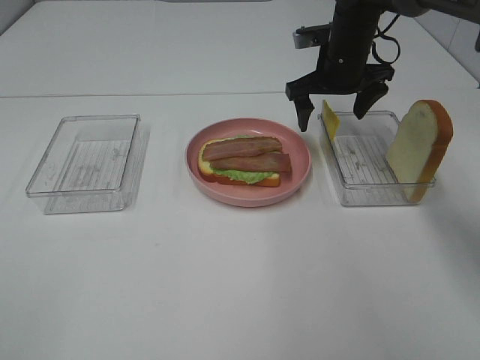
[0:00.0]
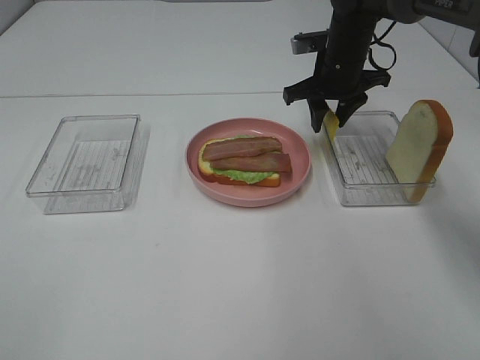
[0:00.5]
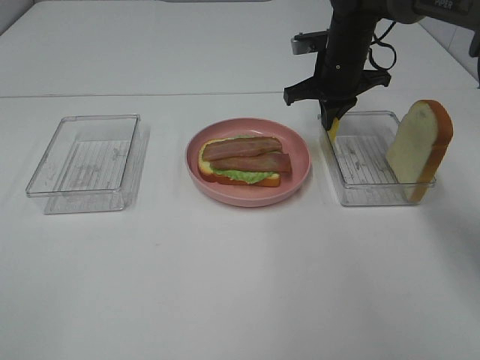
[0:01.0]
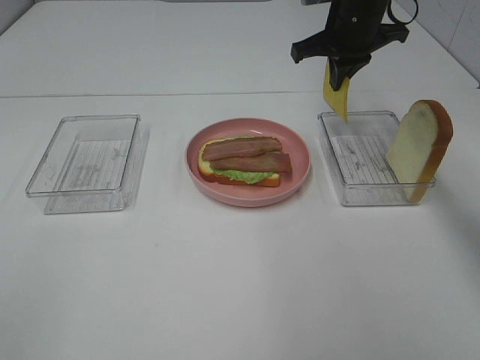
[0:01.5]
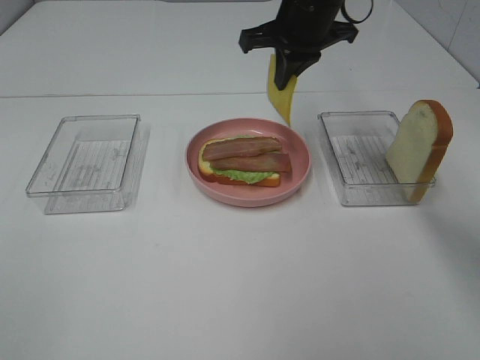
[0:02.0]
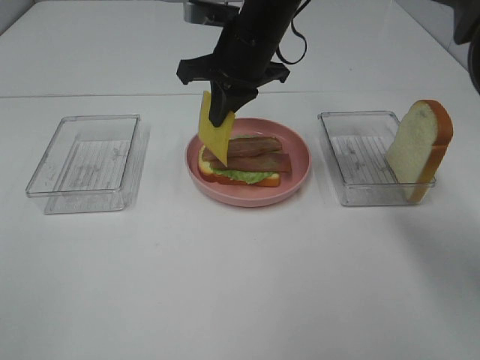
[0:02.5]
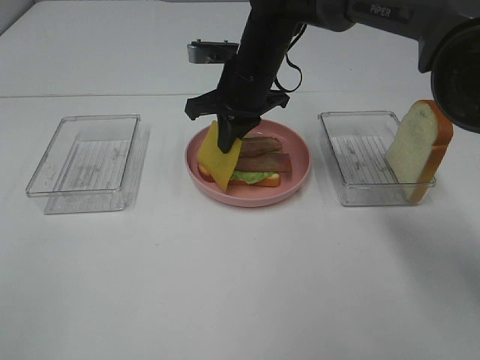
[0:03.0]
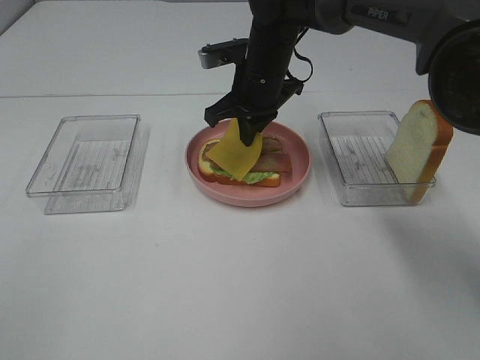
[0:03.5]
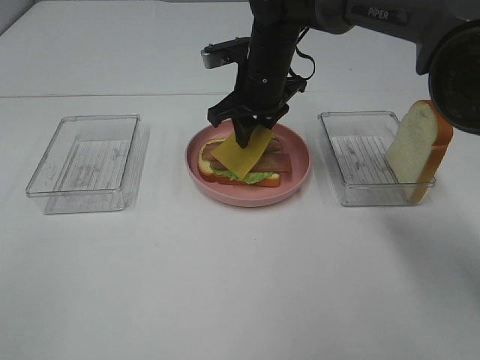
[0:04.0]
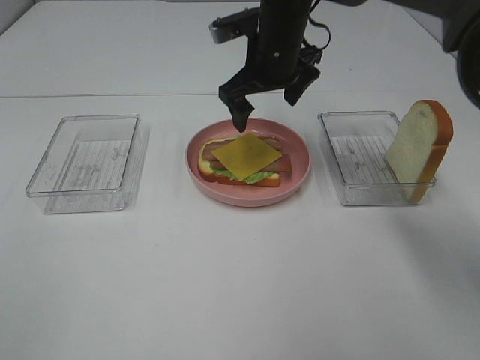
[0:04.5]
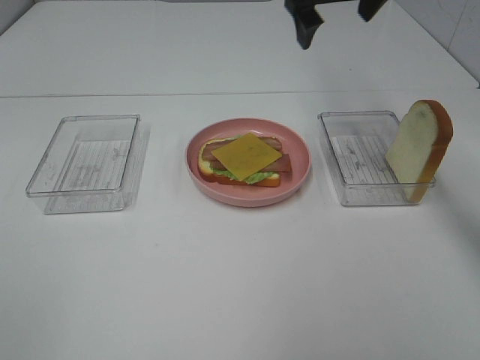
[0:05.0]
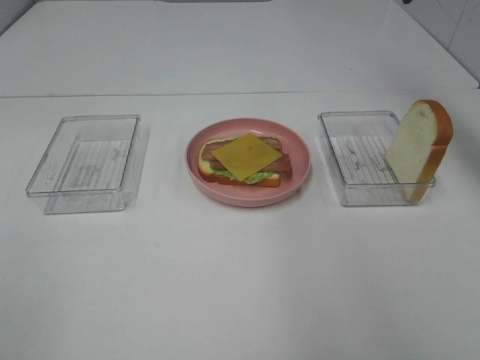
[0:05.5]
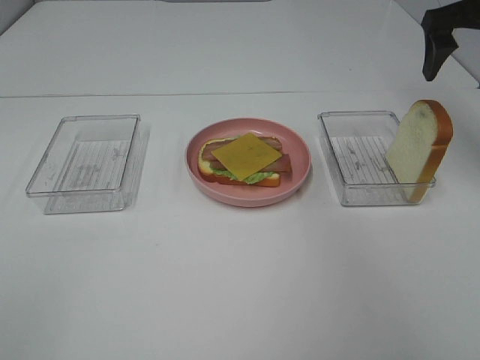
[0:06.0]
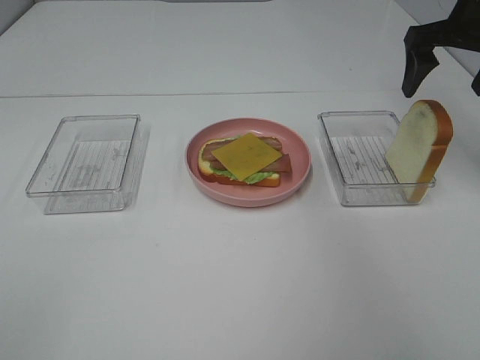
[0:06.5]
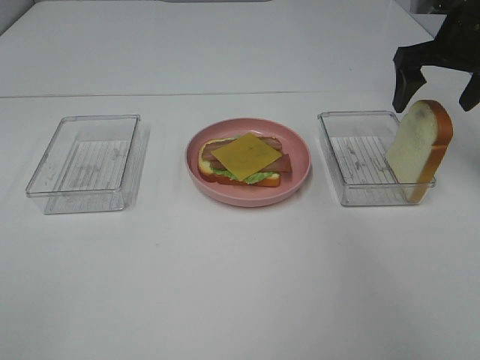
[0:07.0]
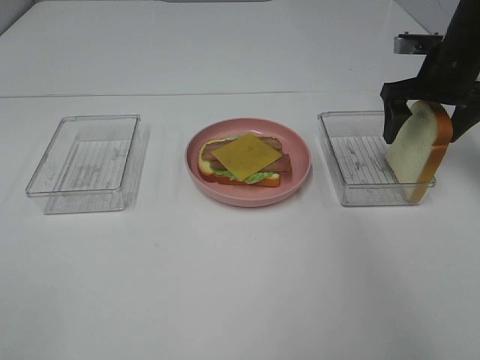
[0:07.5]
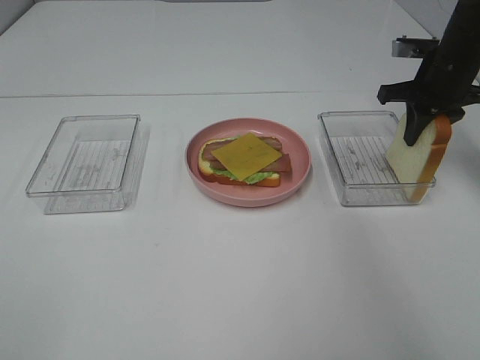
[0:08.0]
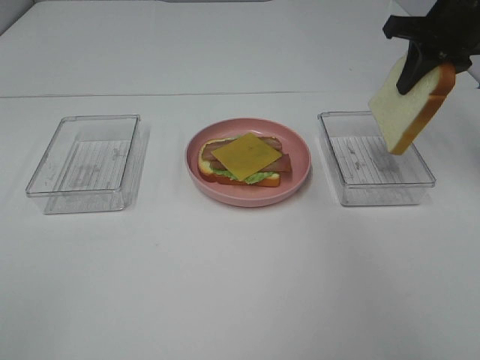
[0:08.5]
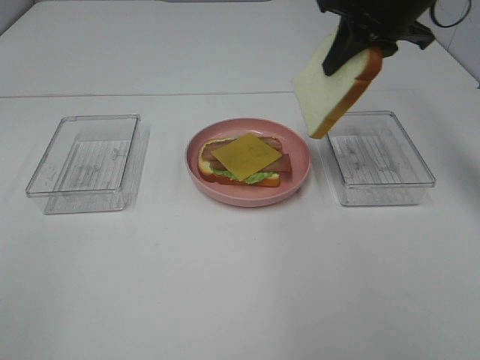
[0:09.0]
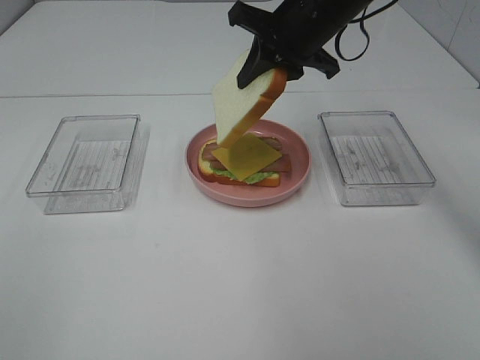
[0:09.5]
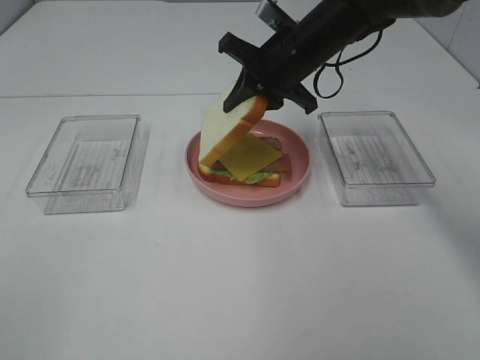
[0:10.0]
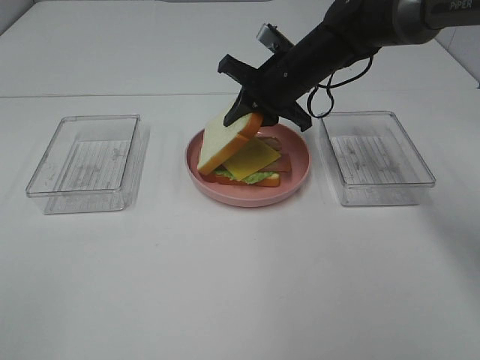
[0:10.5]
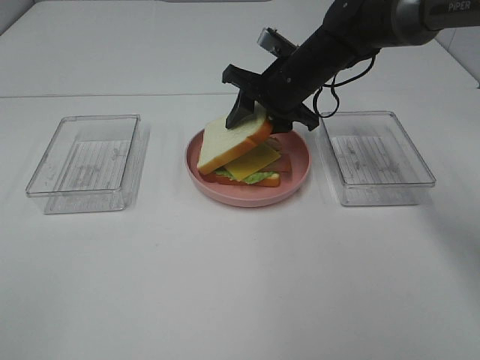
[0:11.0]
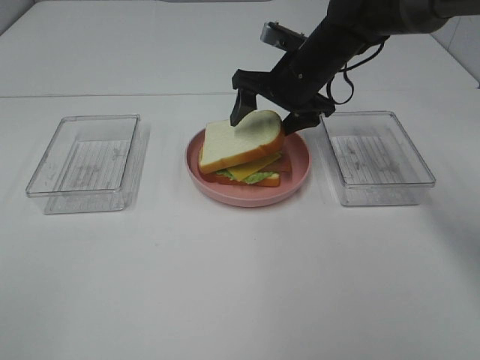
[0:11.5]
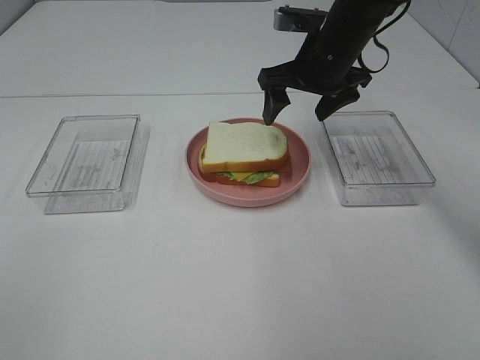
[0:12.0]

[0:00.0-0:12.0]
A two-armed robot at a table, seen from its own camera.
Task of the whole recording: Make sandwiches.
Step, 0:01.0 to 0:04.5: Right hand:place the cheese slice on top of the bacon.
Step, 0:05.0 to 0:07.5: Right hand:grab the bread slice.
Step, 0:08.0 to 0:11.5: Right hand:place the bread slice on the cheese slice.
0:00.0 to 0:02.0: The right gripper moves upward and to the left, roughly 10 cm, and closes.
0:02.0 to 0:04.0: The right gripper goes roughly 10 cm downward, and opens its fingers.
0:04.0 to 0:06.0: The right gripper is displaced to the right and upward by some 30 cm, and opens up.
0:06.0 to 0:08.0: The right gripper is displaced downward by approximately 10 cm, and closes up.
0:08.0 to 0:10.0: The right gripper is displaced to the left by about 20 cm.
0:10.0 to 0:12.0: The right gripper opens.

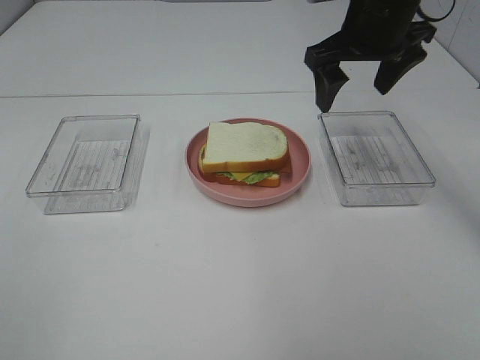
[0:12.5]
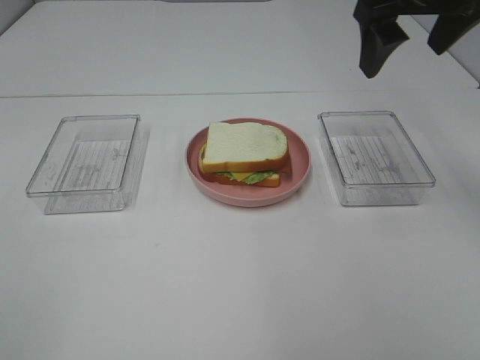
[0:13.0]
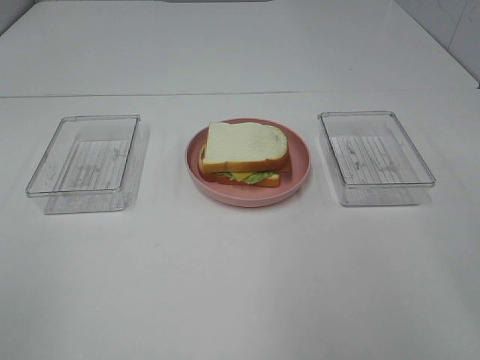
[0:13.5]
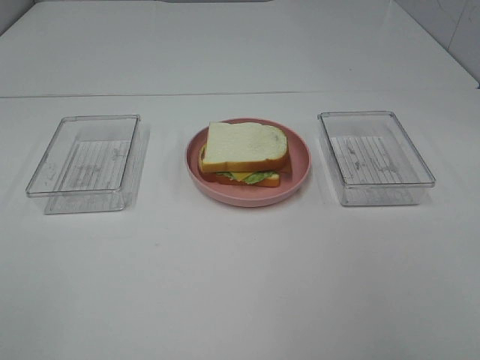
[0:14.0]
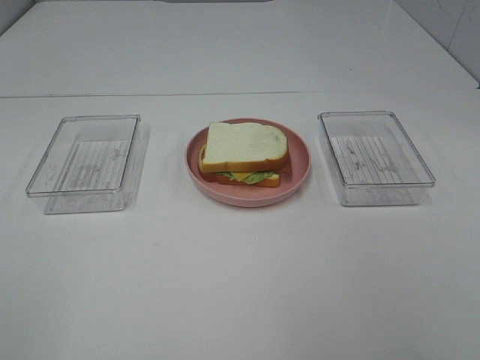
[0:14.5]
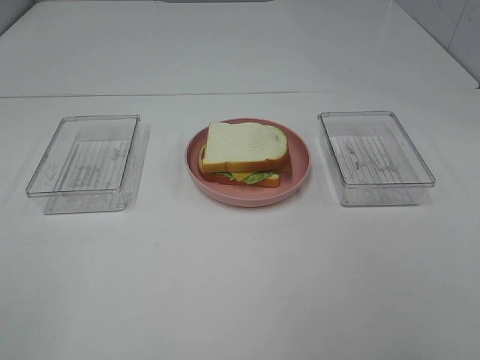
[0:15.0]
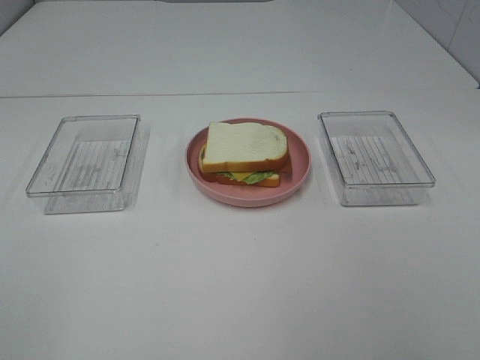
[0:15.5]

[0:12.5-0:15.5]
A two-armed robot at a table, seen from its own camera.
Task of the whole recording: Make sandwiches.
0:12.5 to 0:14.0: The right gripper goes roughly 35 cm backward and to the right.

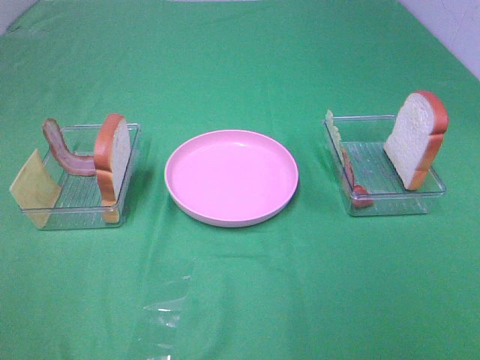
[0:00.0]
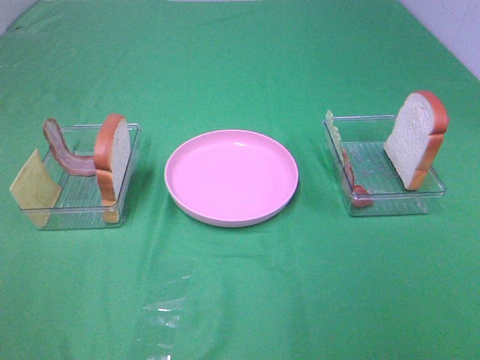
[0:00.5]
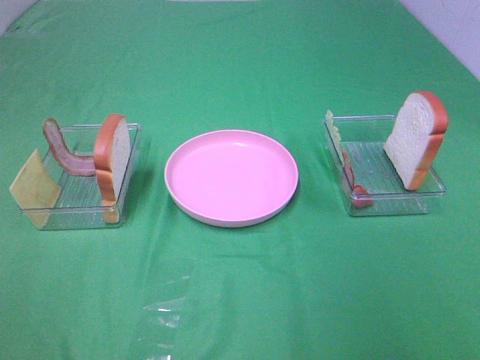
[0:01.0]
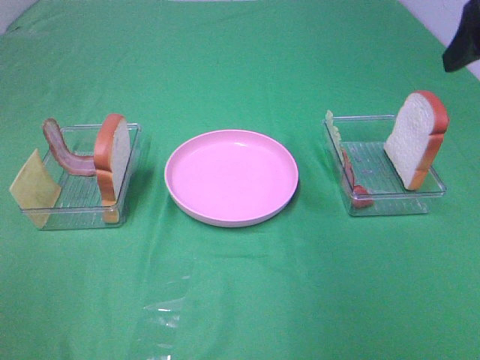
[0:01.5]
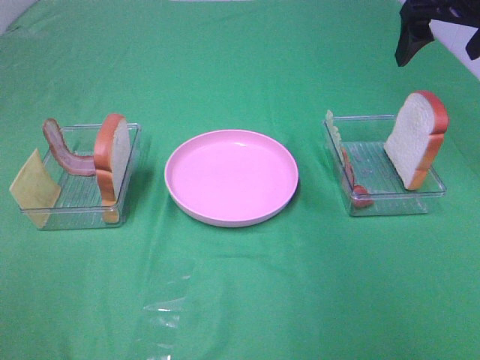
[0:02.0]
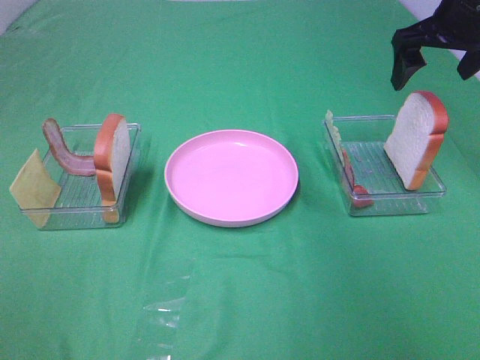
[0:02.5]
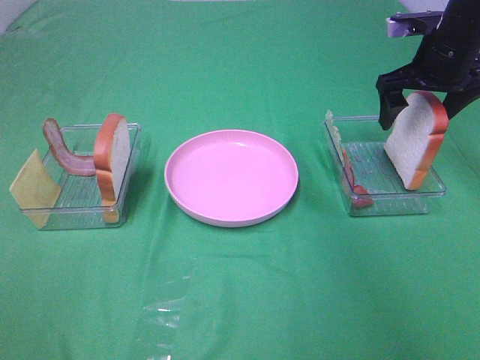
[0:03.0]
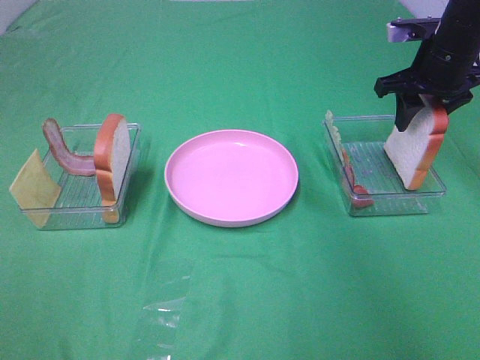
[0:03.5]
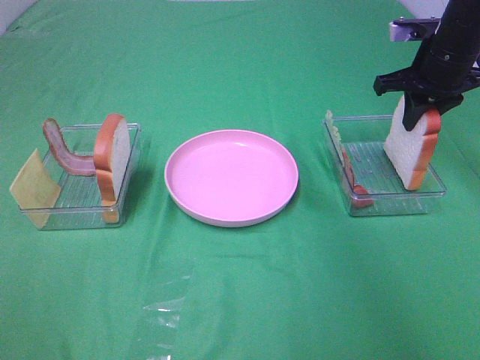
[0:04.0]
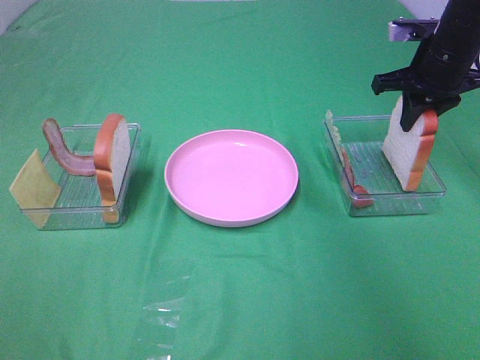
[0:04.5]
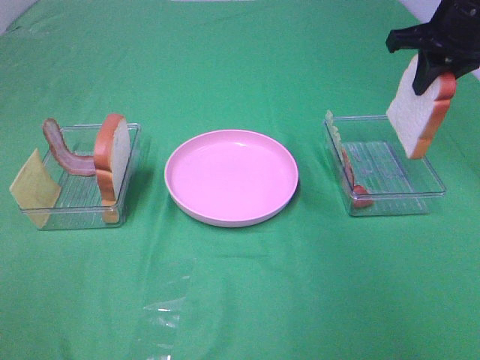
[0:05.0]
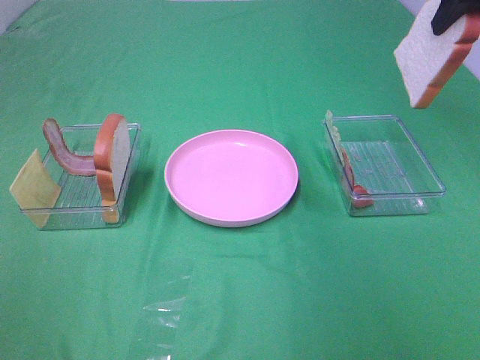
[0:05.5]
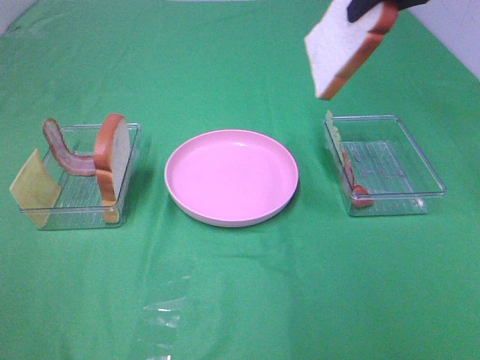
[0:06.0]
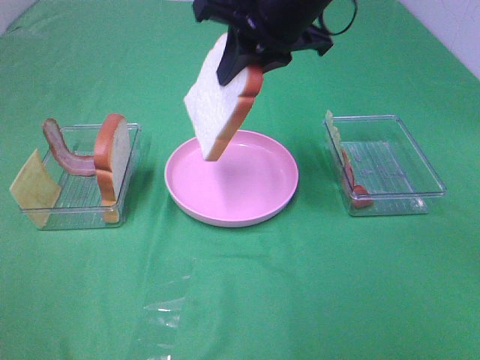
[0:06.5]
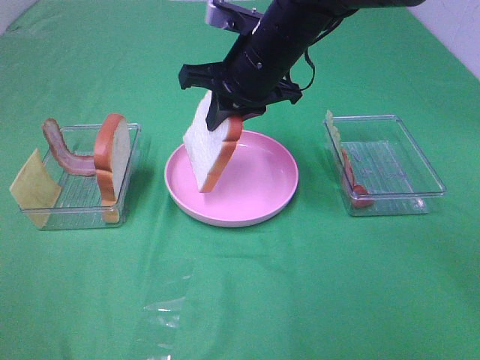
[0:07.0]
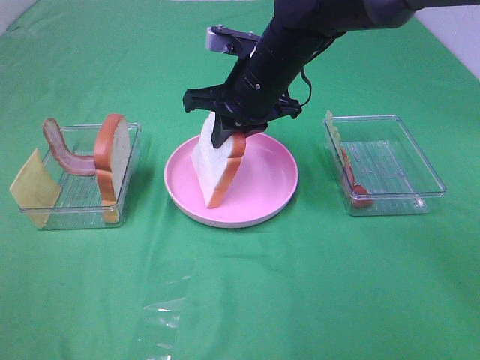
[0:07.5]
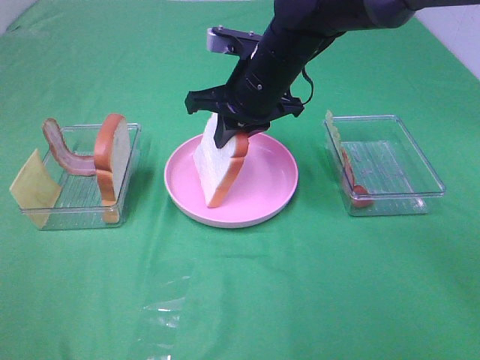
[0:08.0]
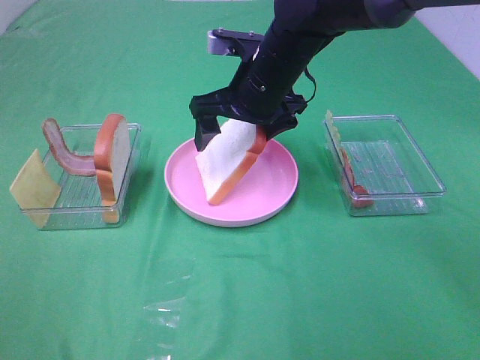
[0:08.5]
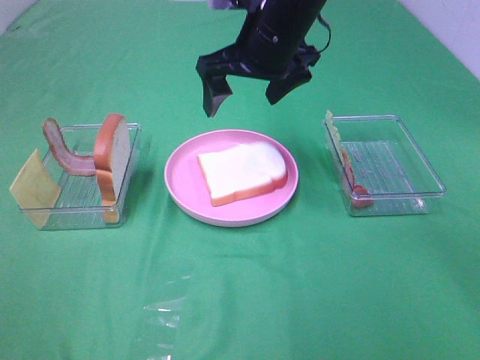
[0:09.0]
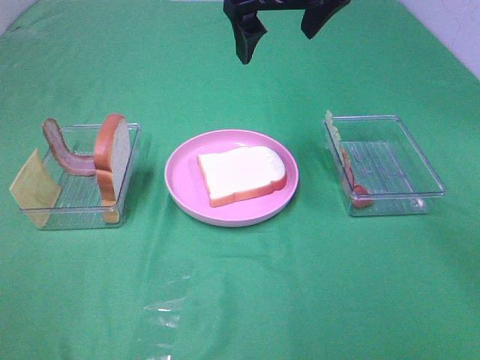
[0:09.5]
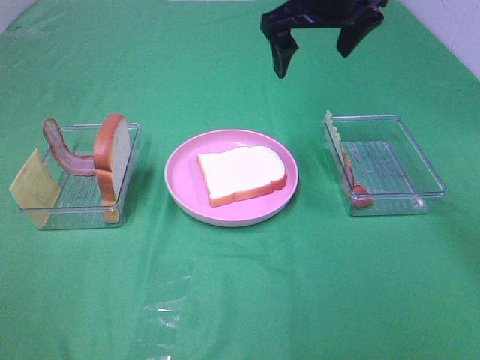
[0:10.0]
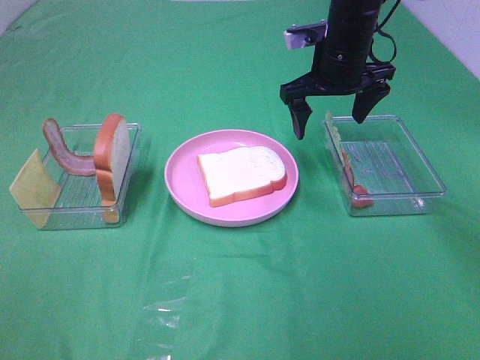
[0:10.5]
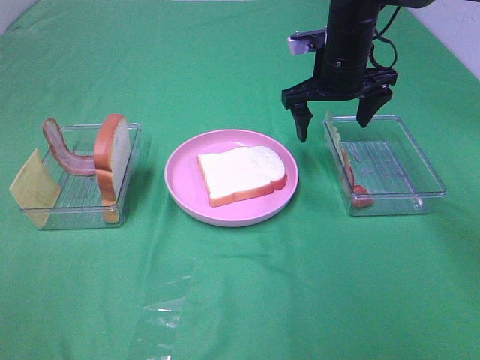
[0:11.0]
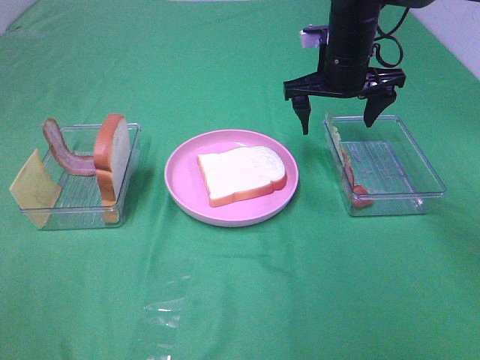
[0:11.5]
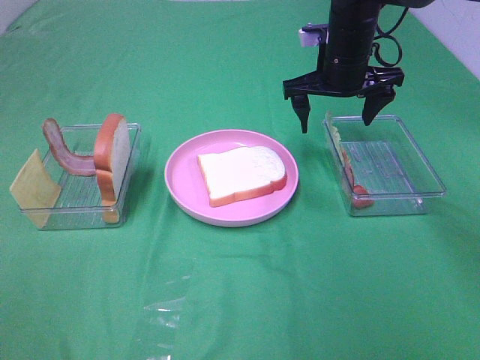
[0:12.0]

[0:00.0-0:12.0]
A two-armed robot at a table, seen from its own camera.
Task of the whole recording: Make sandwiches.
Step, 0:00.0 to 0:04.0: Right hand:grab the bread slice.
Step, 0:04.5 to 0:09.0: Right hand:place the bread slice on the plate.
0:00.0 to 0:02.0: The right gripper moves forward, about 40 cm.
0:02.0 to 0:04.0: The right gripper goes roughly 10 cm downward, and closes its fingers.
0:04.0 to 0:06.0: The right gripper heads upward, to the left and backward, covering approximately 20 cm.
0:06.0 to 0:08.0: The right gripper goes about 20 cm downward and to the left.
0:08.0 to 0:10.0: The right gripper heads upward and to the right, covering some 15 cm, and opens its fingers.
0:10.0 to 0:12.0: The right gripper heads downward, covering some 10 cm.
